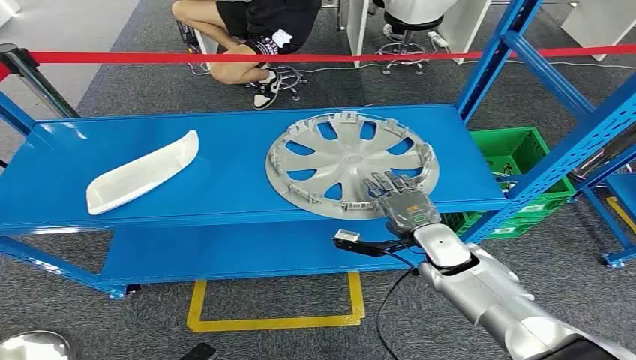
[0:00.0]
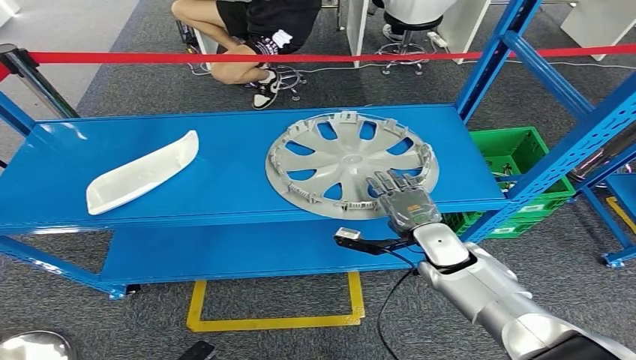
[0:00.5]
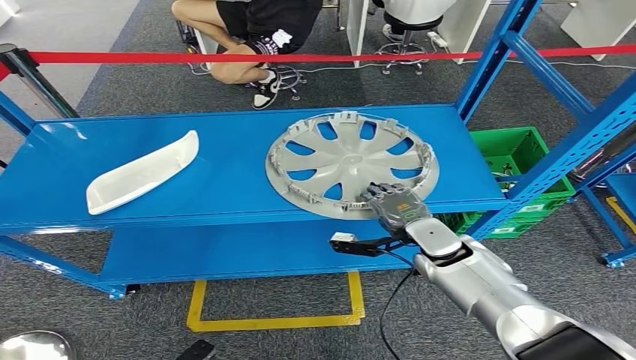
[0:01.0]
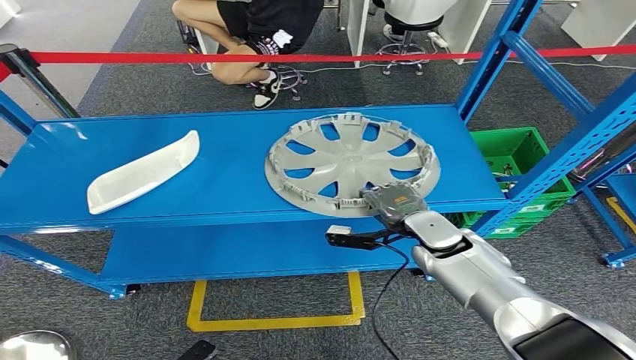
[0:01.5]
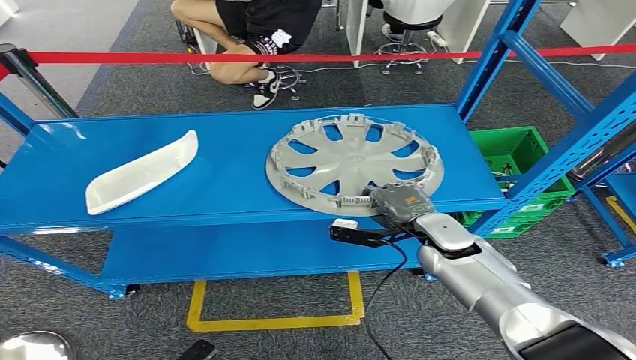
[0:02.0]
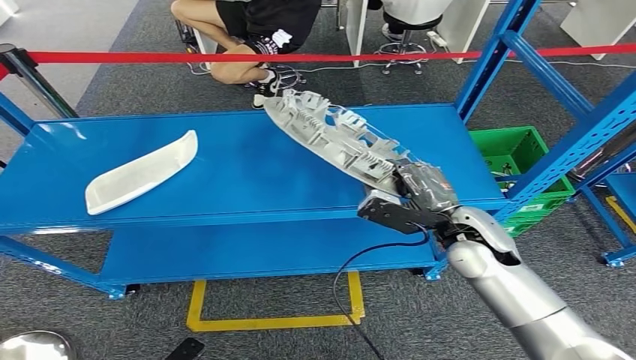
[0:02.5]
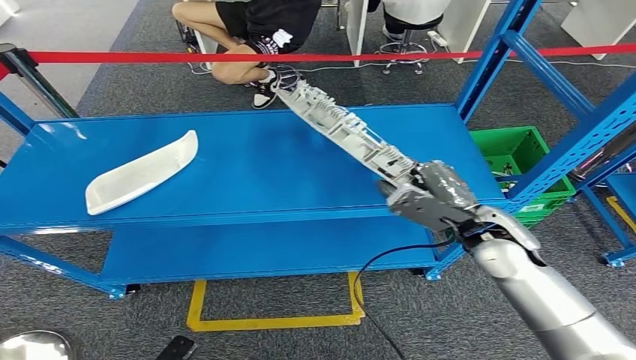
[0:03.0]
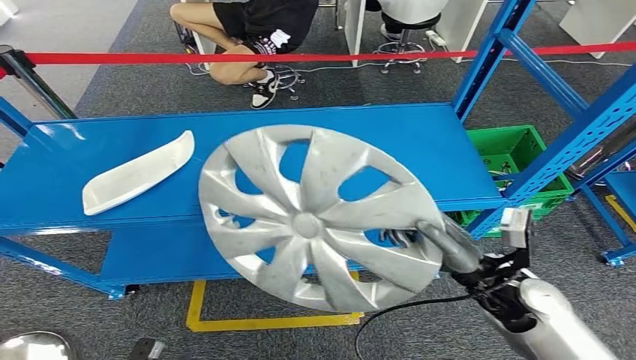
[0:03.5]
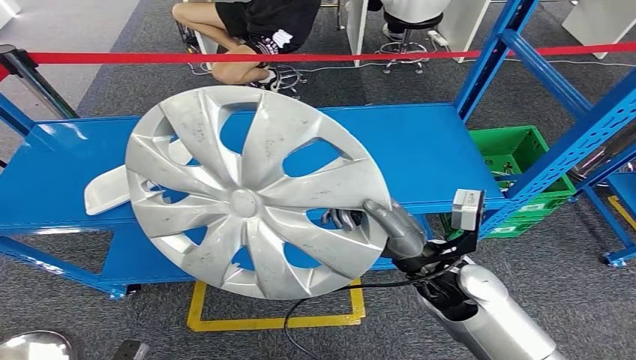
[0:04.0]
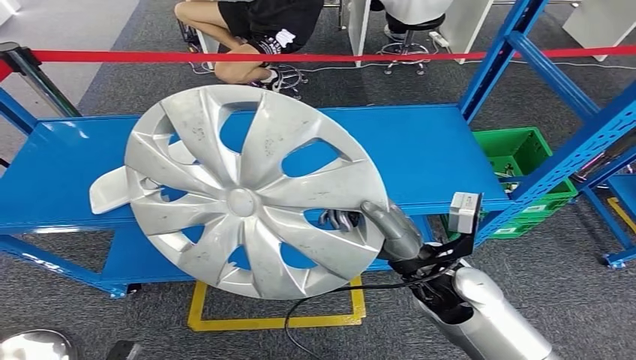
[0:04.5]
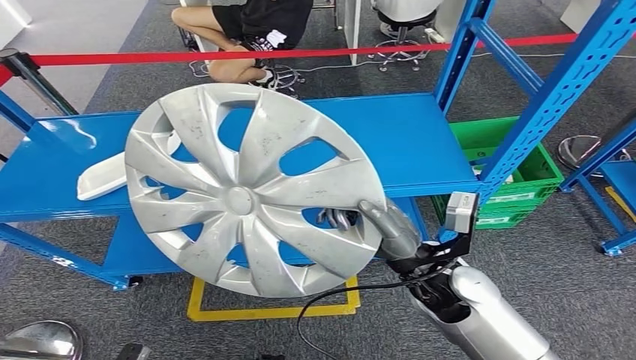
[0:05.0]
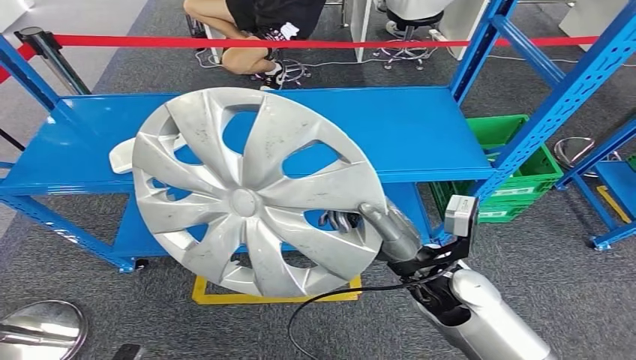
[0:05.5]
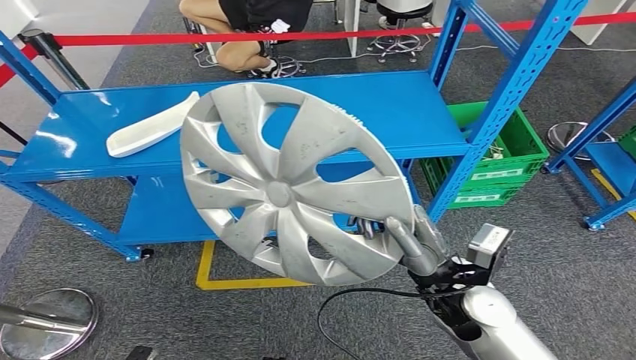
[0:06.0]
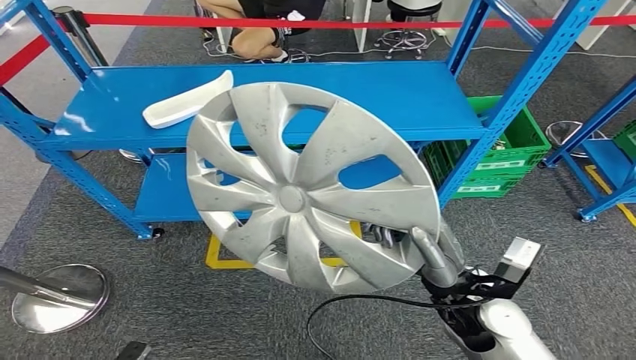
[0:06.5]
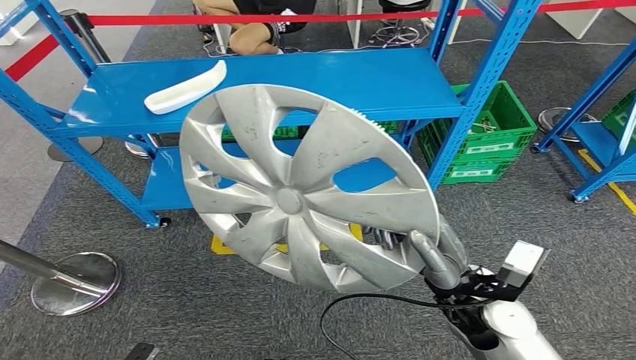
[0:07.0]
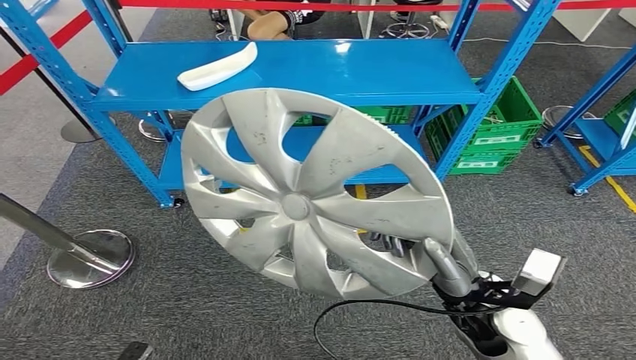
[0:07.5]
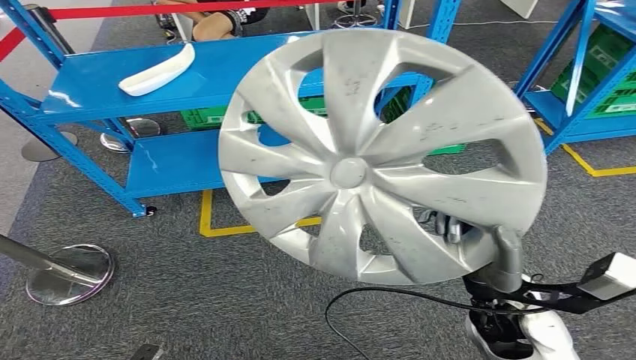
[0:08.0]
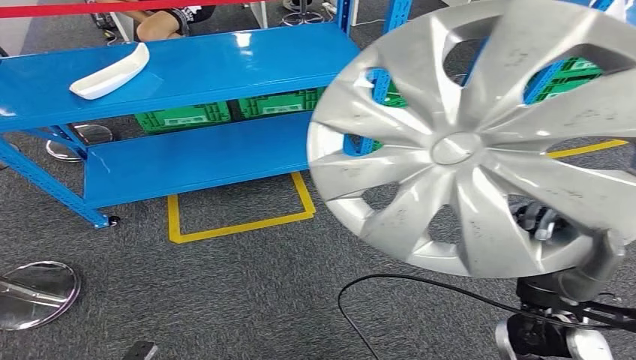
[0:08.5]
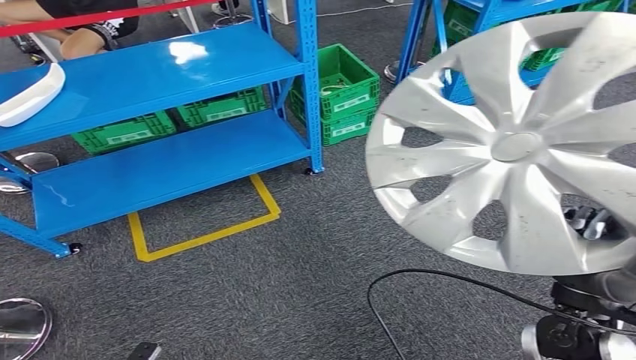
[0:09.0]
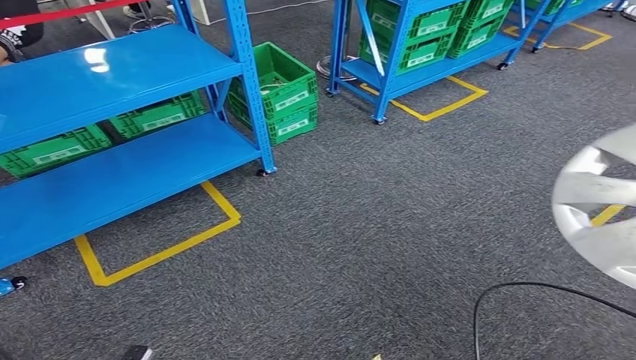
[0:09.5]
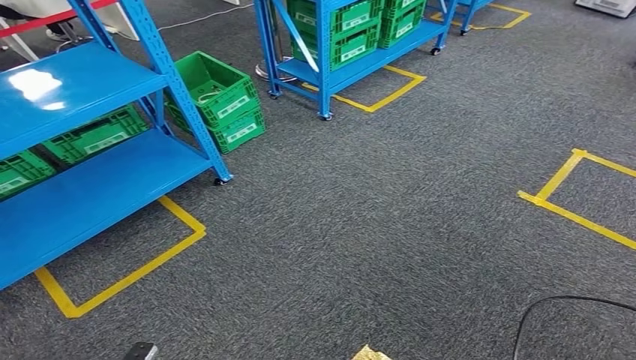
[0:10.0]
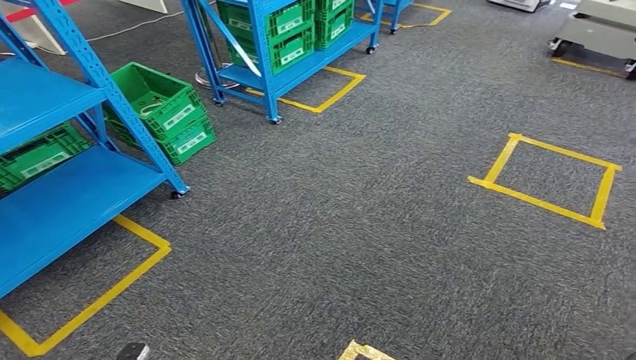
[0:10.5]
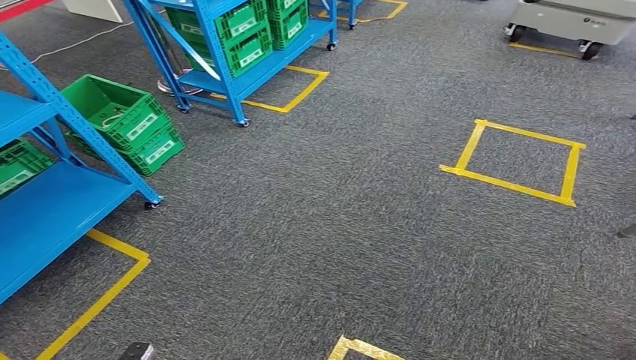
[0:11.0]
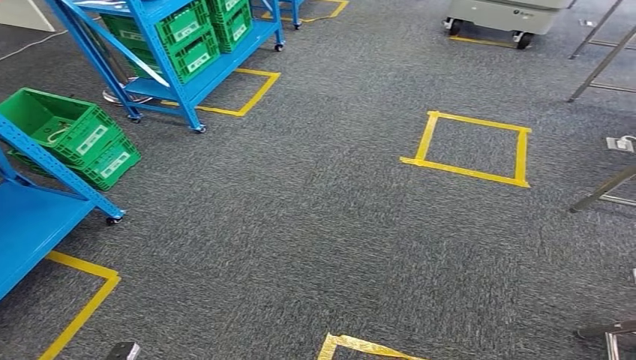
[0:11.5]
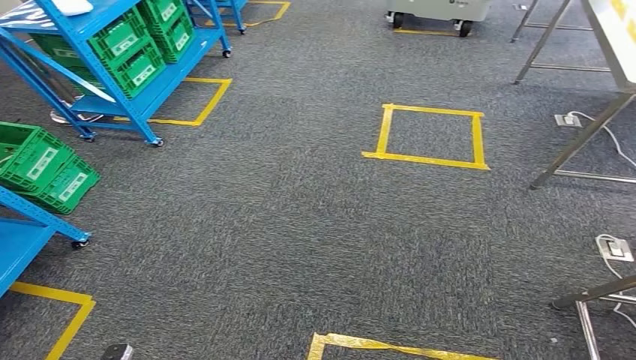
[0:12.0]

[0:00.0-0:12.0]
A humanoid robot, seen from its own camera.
Step, 0:00.0 to 0:04.5: Pick up the small component from the shelf.

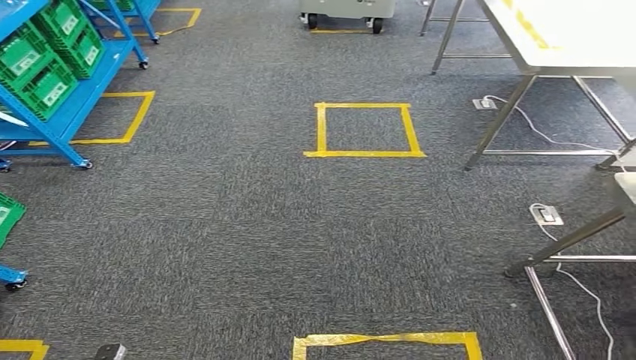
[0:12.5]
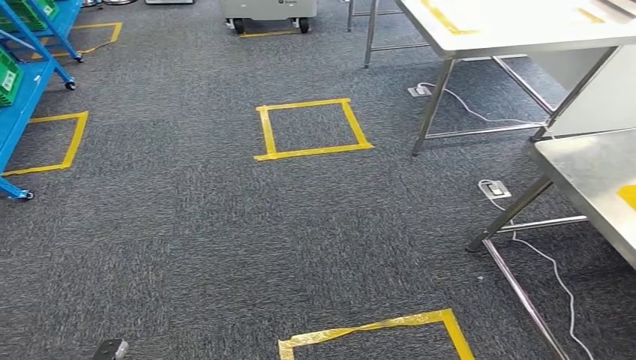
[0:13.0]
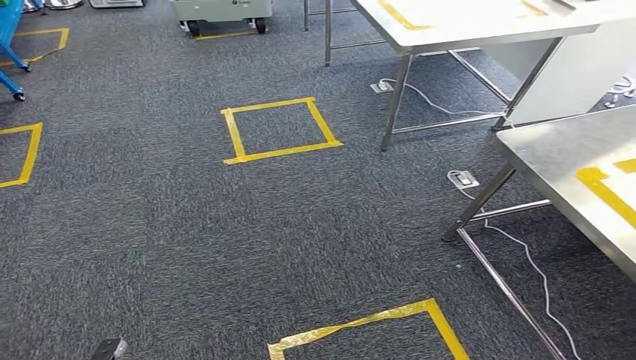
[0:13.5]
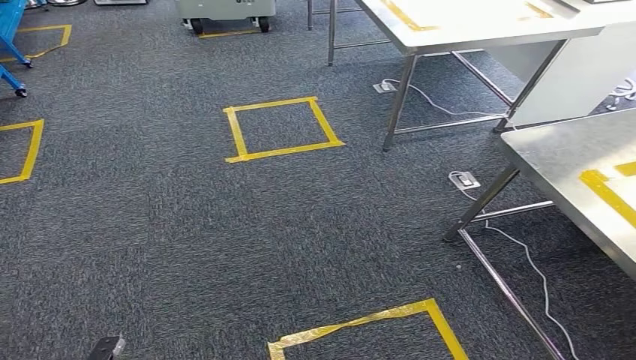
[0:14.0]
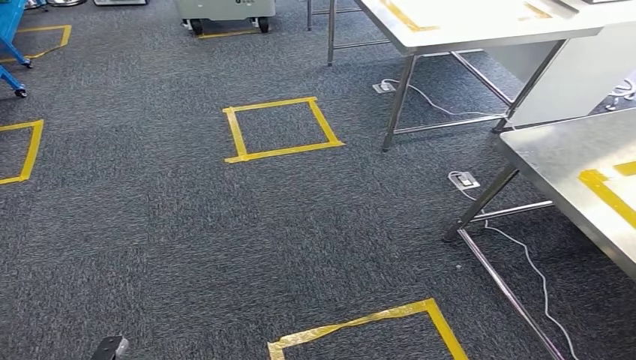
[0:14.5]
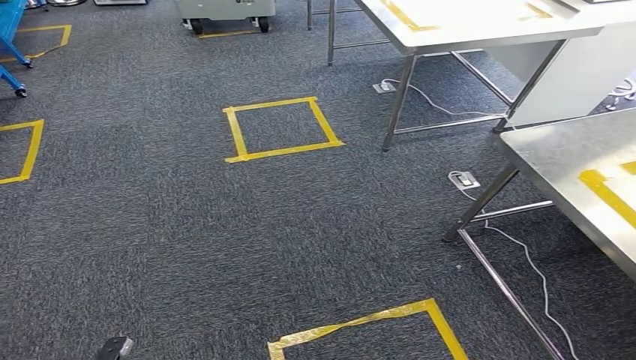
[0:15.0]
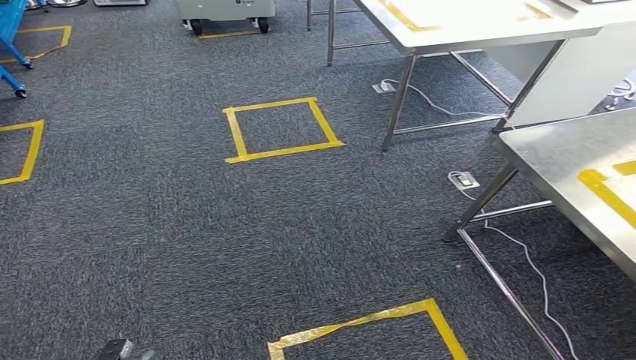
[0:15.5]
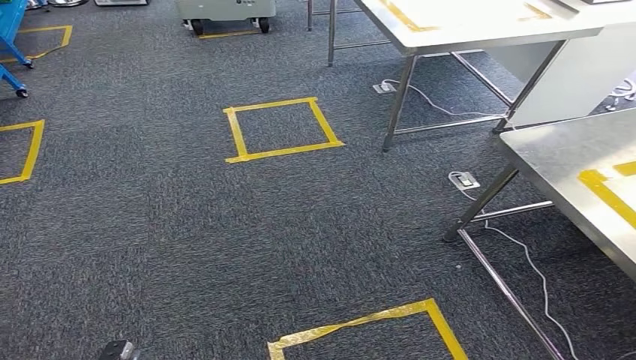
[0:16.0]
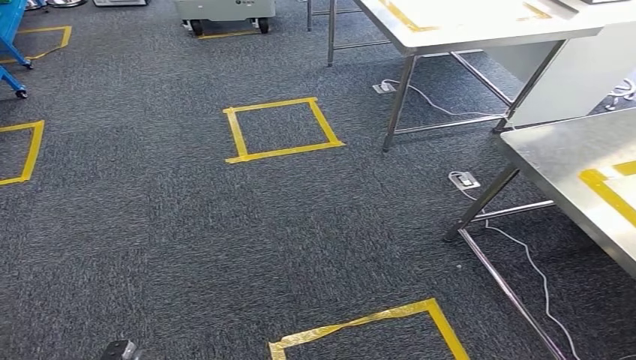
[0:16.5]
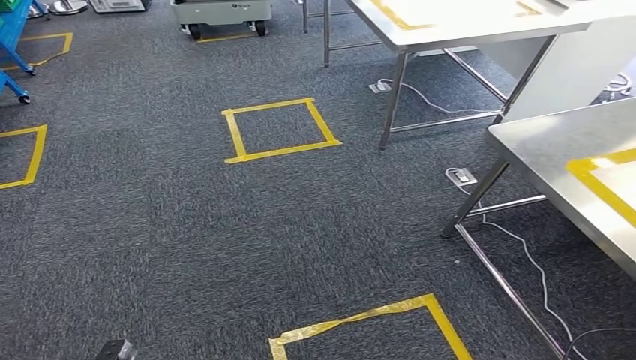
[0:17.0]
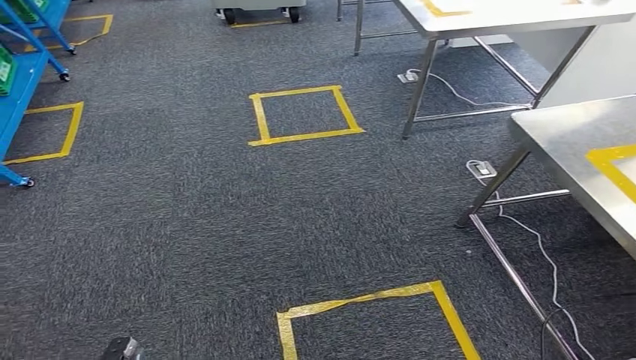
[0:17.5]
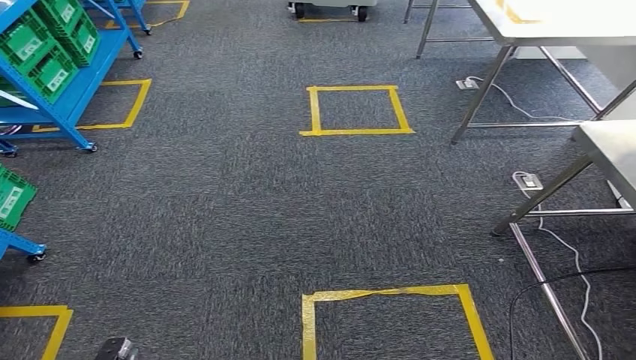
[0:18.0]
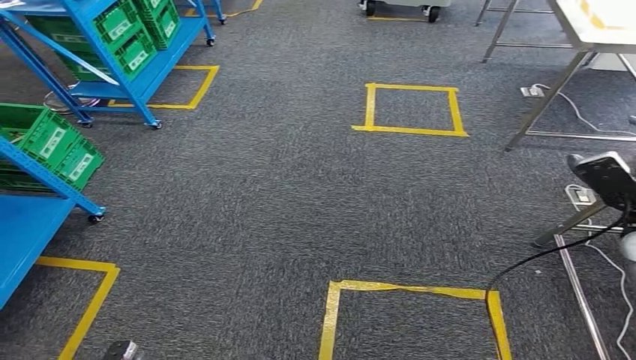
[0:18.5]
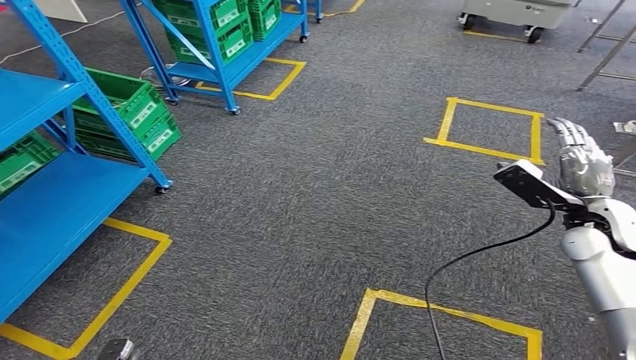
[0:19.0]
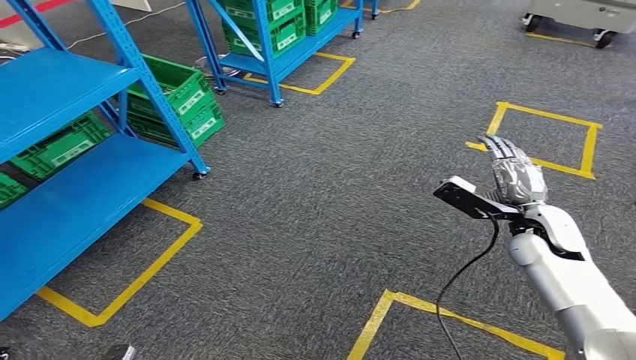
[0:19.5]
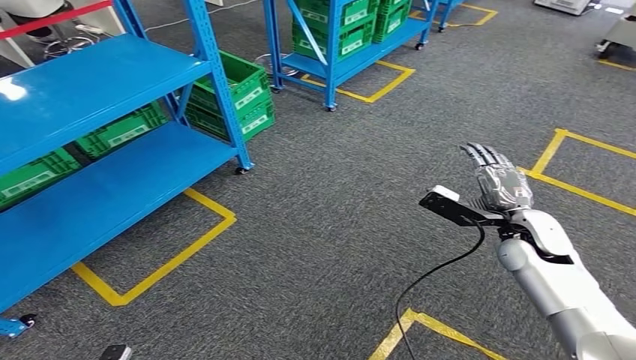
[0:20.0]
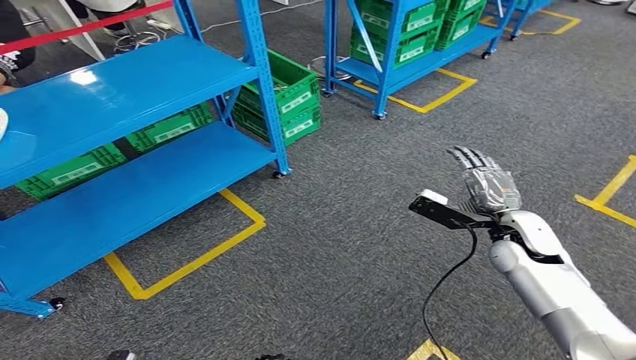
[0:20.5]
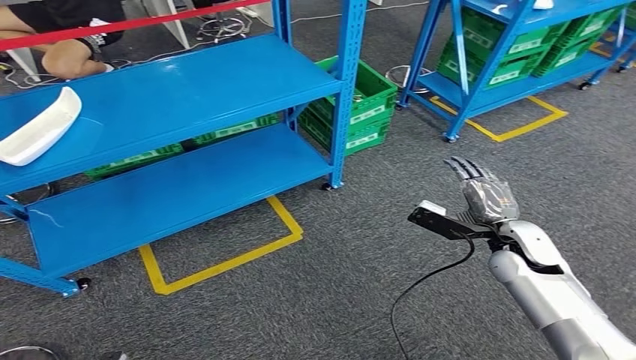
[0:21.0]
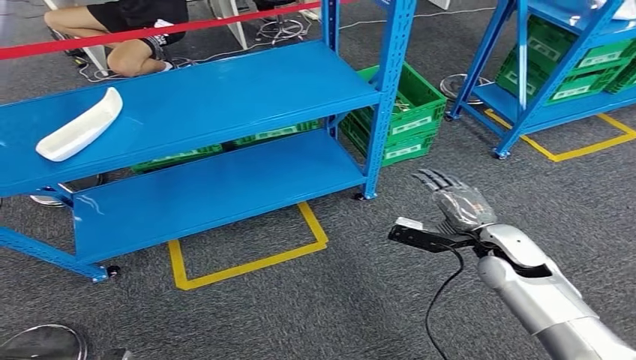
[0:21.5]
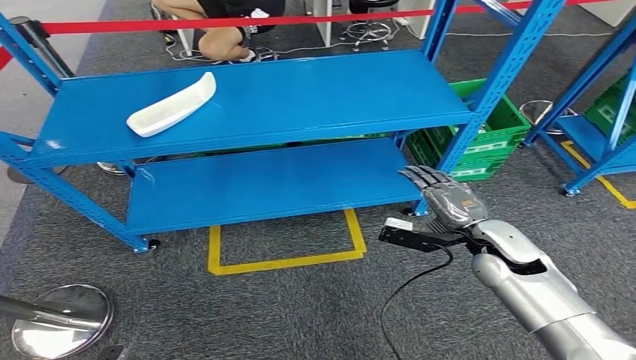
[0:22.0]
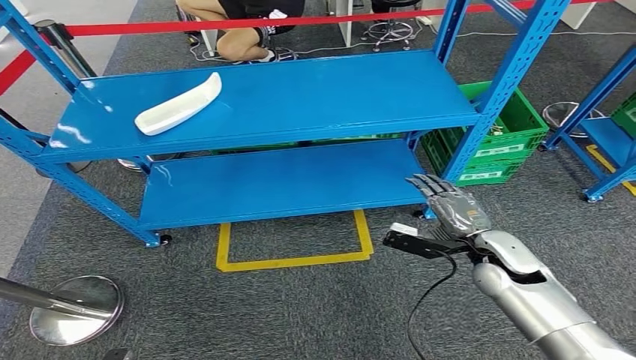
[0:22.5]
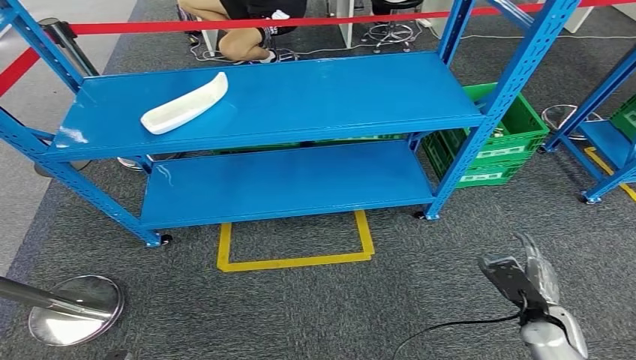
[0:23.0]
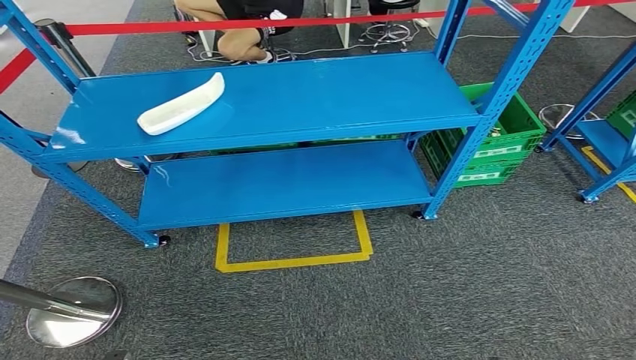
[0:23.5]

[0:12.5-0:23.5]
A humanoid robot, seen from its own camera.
Step, 0:14.5 to 0:19.0: Insert the small component into the corresponding slot on the workbench.
